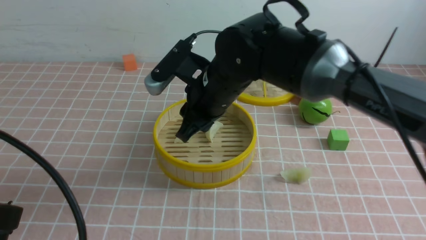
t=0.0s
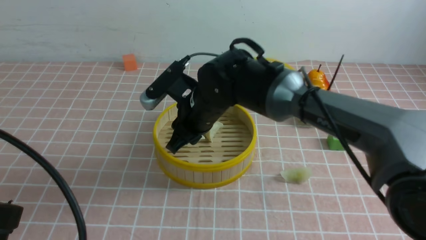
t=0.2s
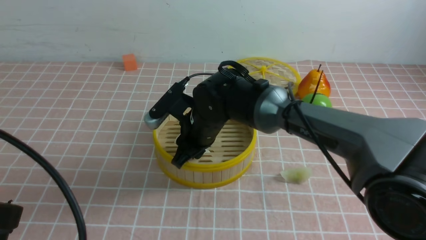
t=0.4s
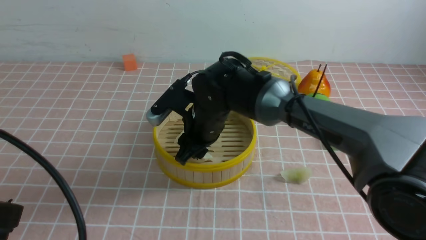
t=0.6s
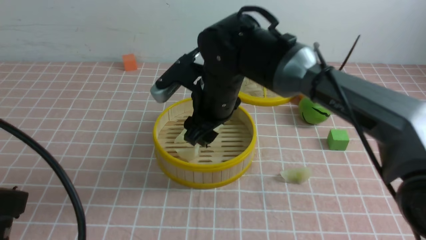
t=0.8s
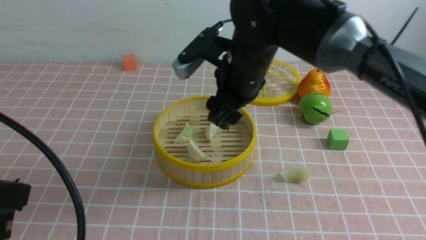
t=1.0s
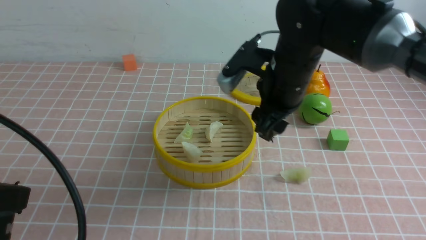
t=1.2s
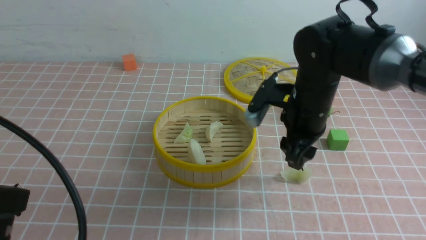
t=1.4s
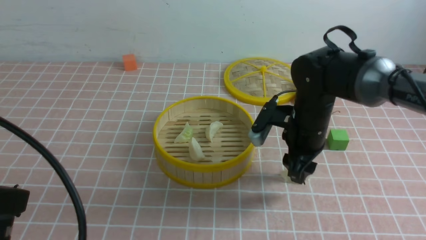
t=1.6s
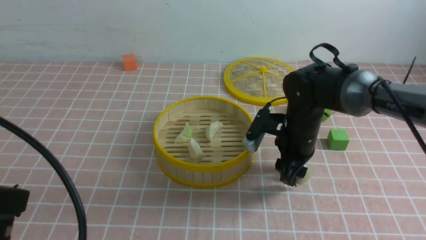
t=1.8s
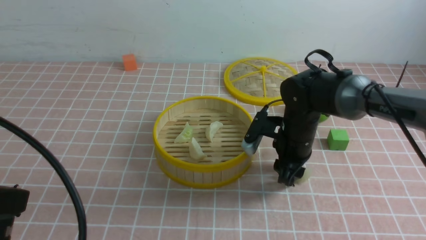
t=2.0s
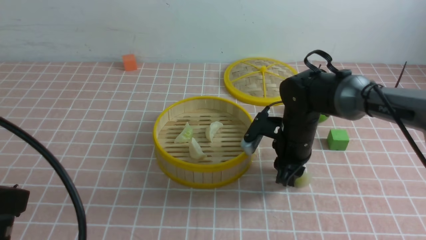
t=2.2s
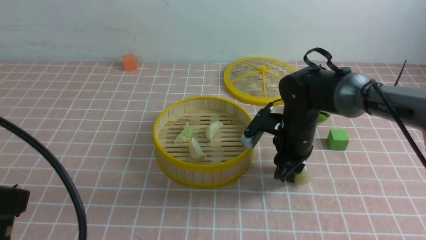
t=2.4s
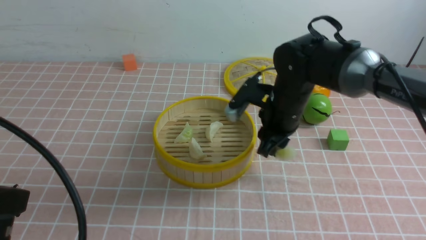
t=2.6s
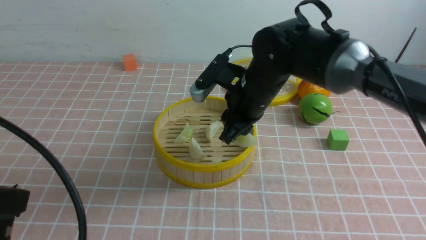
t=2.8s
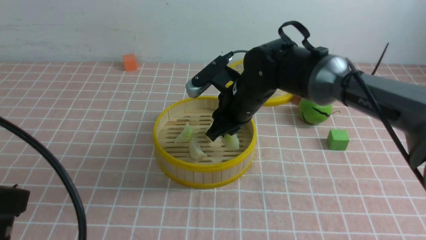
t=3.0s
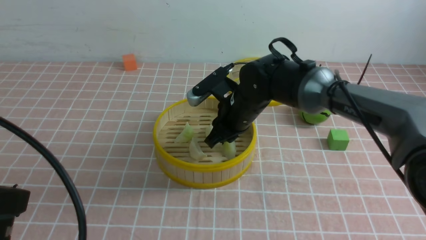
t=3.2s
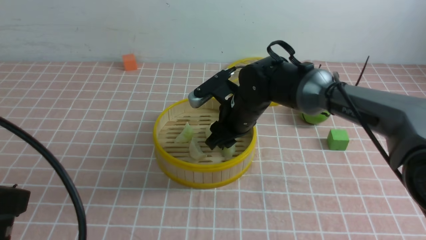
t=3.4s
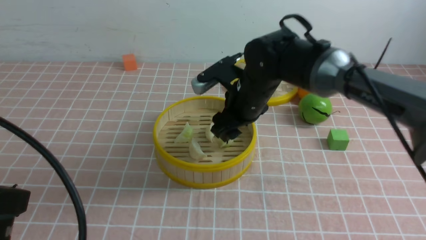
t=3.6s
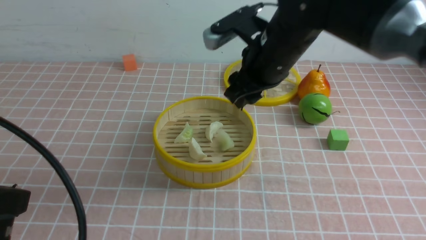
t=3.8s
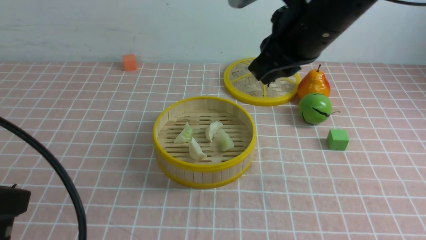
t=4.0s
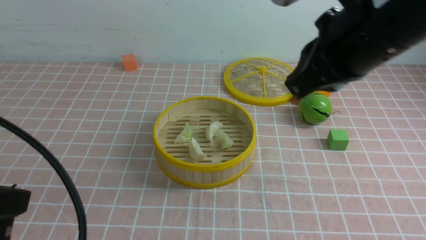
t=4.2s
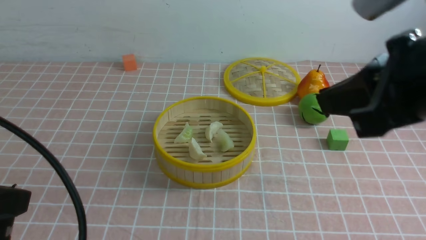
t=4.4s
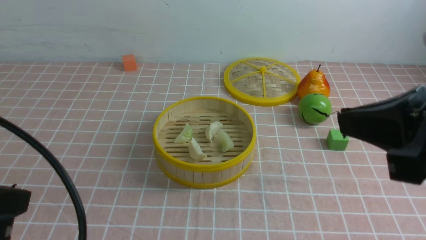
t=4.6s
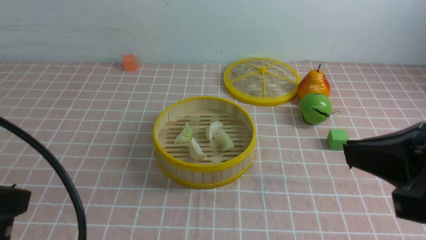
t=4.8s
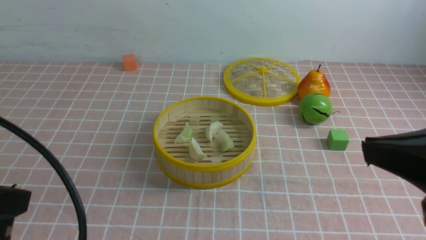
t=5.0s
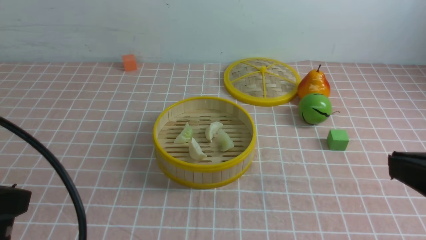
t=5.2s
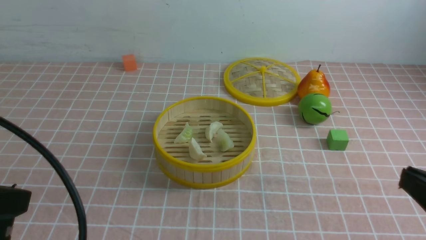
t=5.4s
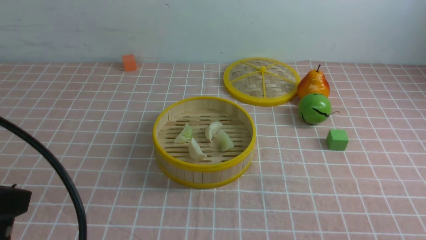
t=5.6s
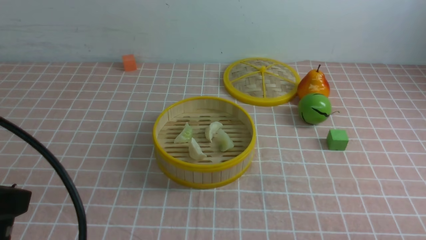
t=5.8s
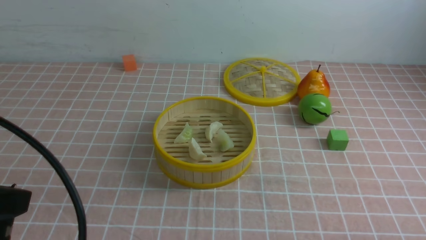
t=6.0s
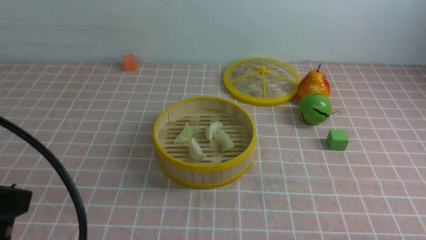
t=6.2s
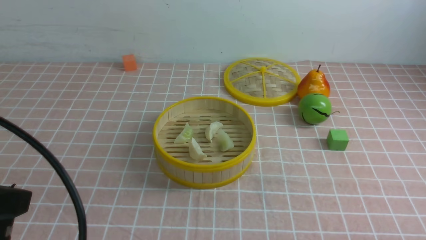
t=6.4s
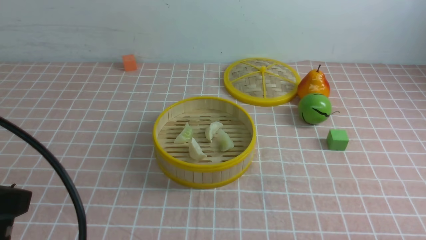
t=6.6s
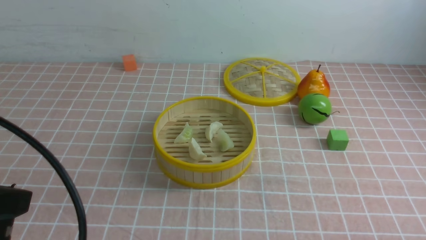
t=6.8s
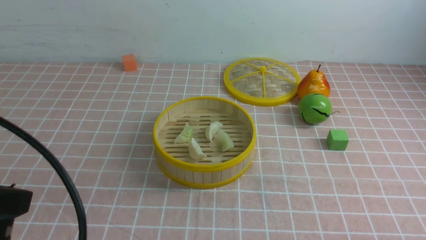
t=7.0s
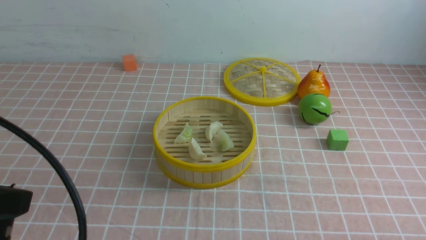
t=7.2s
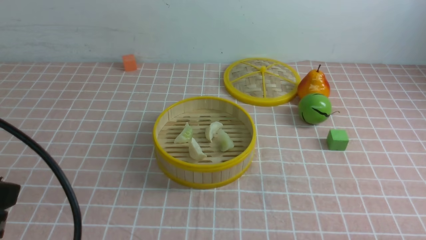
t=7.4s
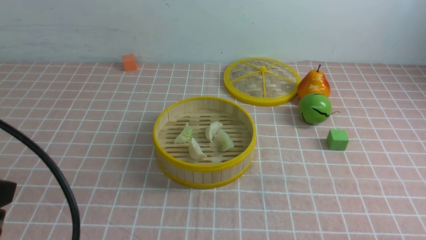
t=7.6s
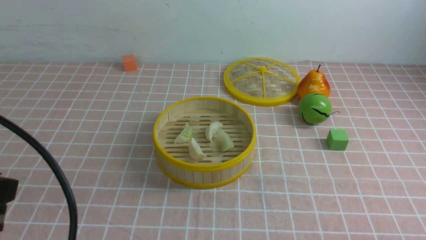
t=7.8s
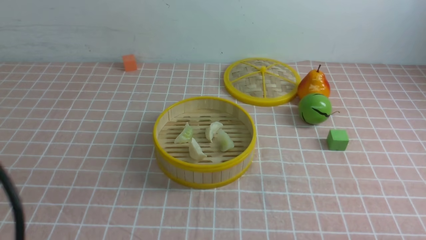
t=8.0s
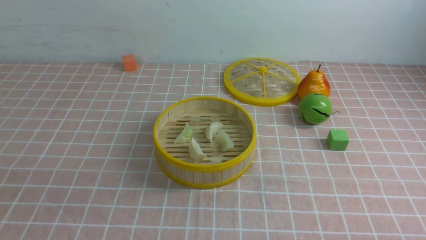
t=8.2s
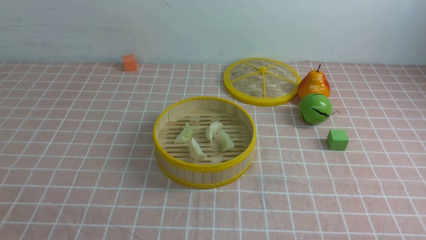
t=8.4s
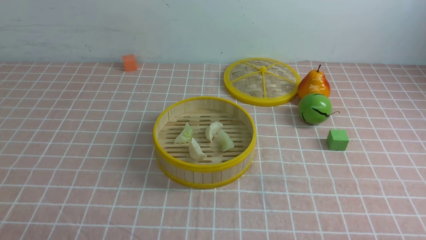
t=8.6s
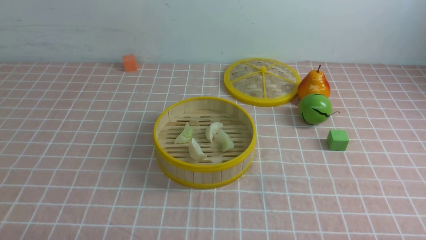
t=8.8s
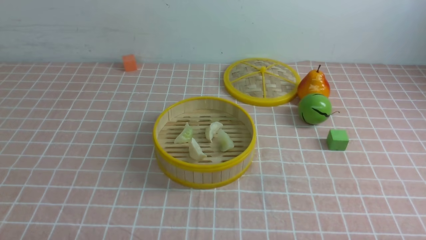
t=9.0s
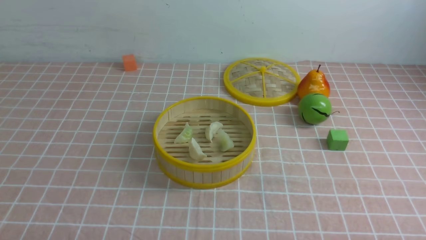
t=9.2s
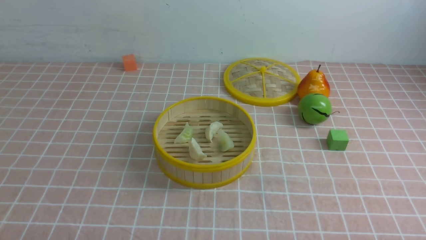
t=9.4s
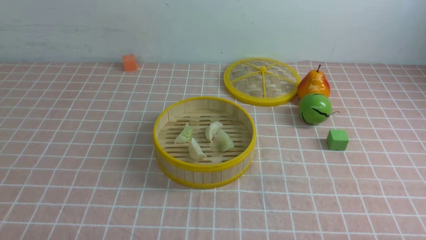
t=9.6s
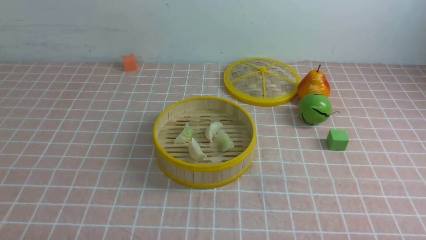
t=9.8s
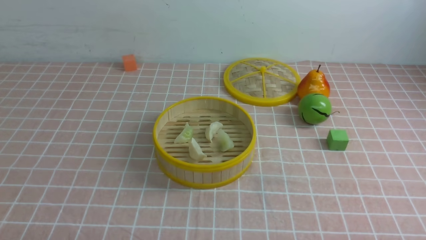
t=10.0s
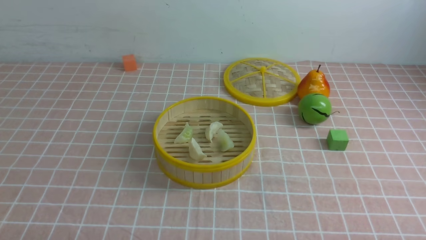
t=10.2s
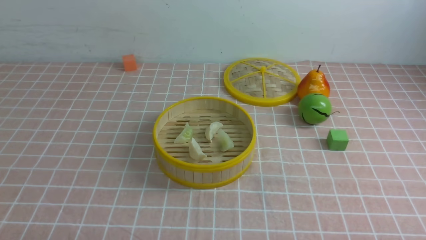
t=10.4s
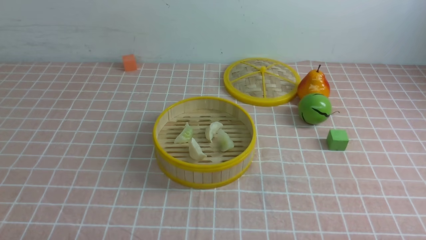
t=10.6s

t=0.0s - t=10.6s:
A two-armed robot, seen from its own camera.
Task of the whole recording: put the dumplings into the steamer on the table with the pink tablecloth.
Step, t=0.4s - t=2.4s: use the right arm to grab a dumpling.
Step, t=2.6s - t=3.4s: use the right arm to put the dumpling into the steamer.
t=0.0s - t=1.6s: The right gripper travels to the right by about 15 cm, and opens.
t=1.6s - t=3.0s: The right gripper shifts approximately 10 cm to the left, and closes its fingers.
t=3.0s - t=4.6s: The right gripper heads backward, upward and to the right, covering approximately 30 cm, and closes its fingers.
t=4.6s - t=6.0s: The right gripper goes about 25 cm downward, to the right and backward.
t=6.0s - t=7.6s: The grippers move only a little.
t=7.6s - t=9.0s: The left gripper moves downward, about 20 cm.
t=9.0s - t=10.6s: Both grippers stay put.
